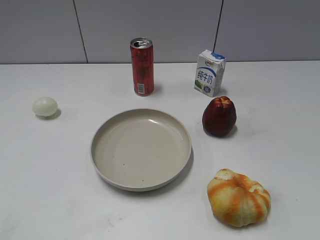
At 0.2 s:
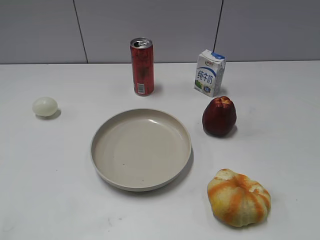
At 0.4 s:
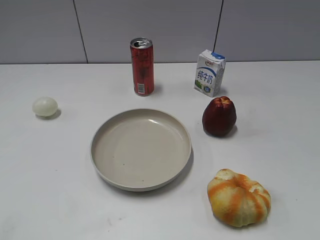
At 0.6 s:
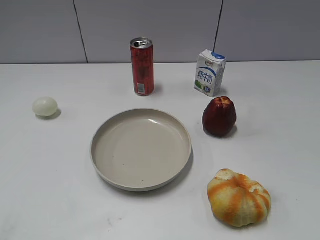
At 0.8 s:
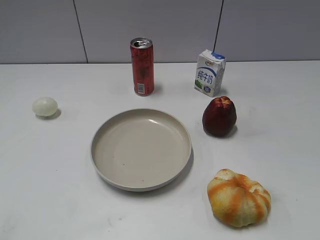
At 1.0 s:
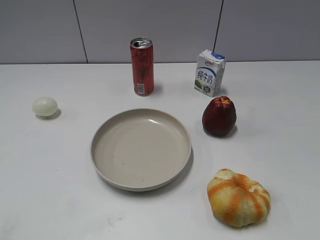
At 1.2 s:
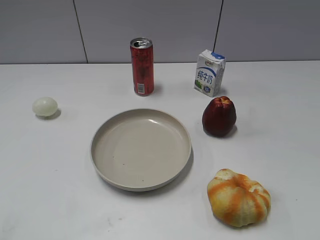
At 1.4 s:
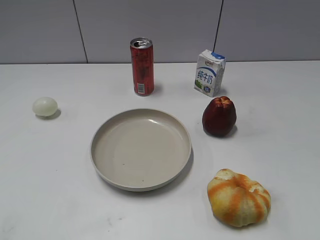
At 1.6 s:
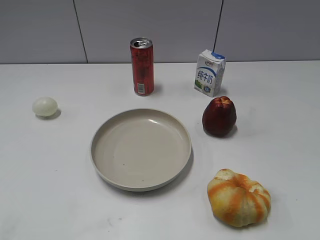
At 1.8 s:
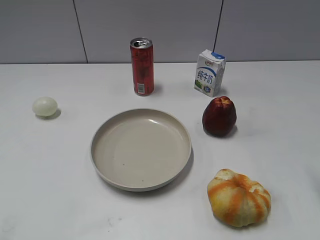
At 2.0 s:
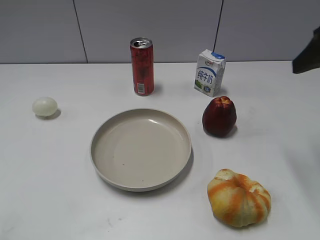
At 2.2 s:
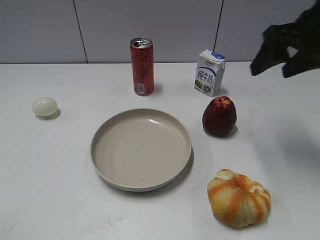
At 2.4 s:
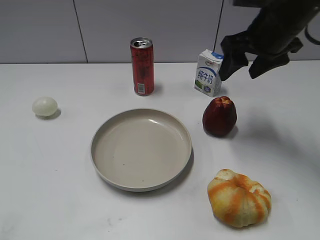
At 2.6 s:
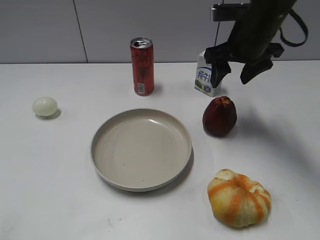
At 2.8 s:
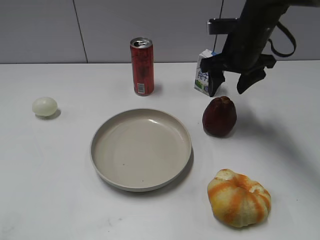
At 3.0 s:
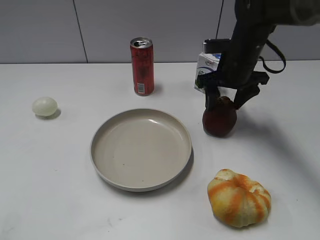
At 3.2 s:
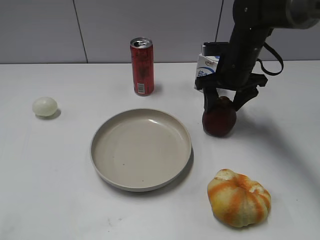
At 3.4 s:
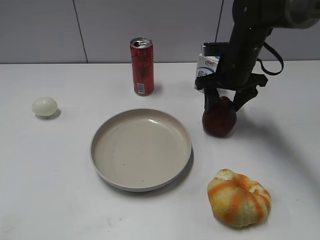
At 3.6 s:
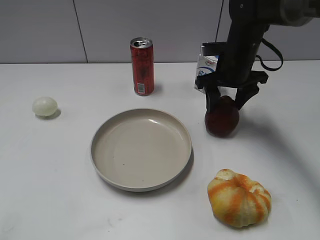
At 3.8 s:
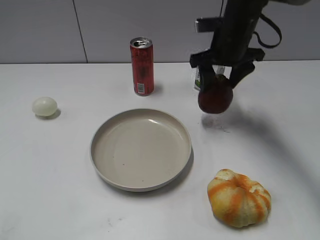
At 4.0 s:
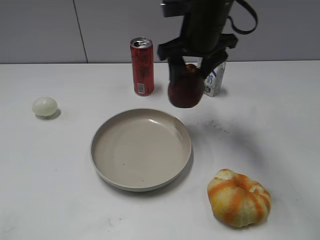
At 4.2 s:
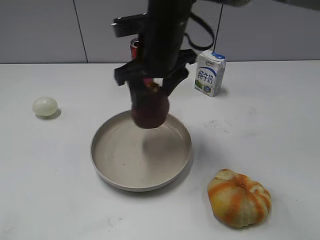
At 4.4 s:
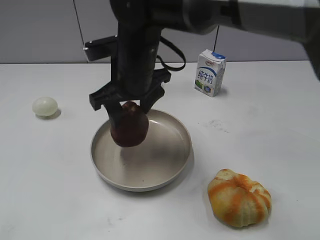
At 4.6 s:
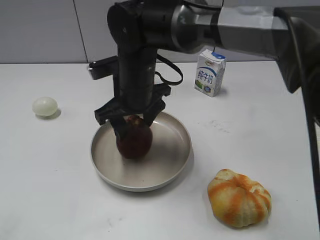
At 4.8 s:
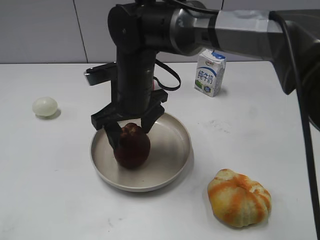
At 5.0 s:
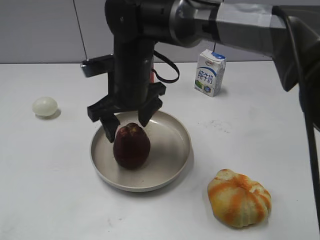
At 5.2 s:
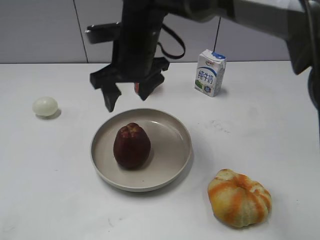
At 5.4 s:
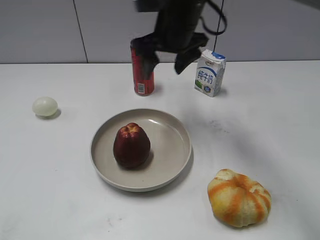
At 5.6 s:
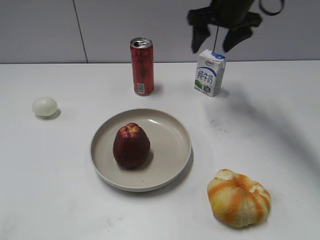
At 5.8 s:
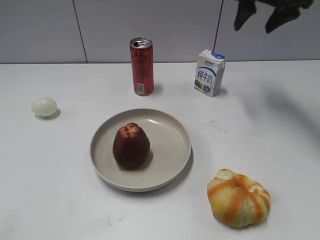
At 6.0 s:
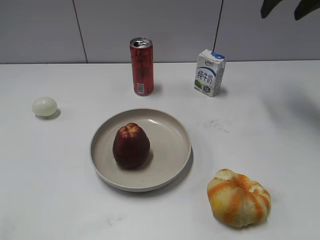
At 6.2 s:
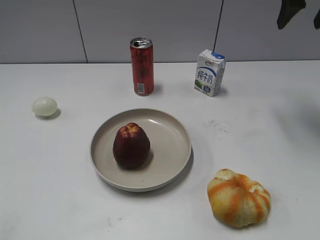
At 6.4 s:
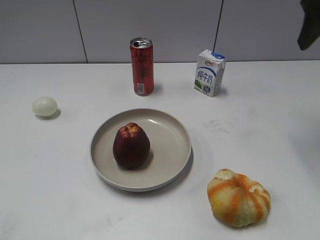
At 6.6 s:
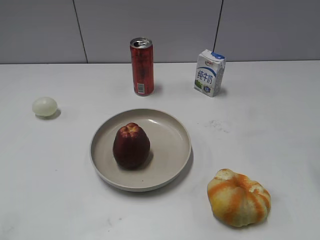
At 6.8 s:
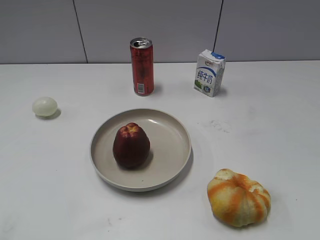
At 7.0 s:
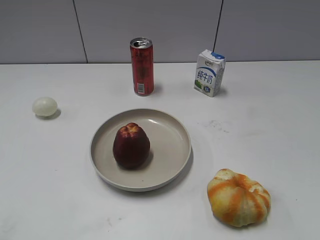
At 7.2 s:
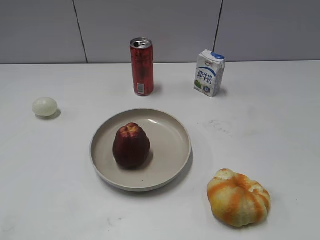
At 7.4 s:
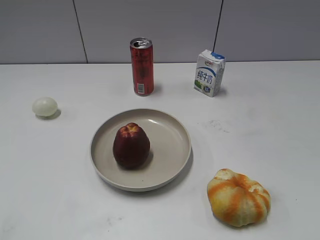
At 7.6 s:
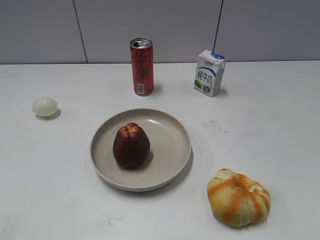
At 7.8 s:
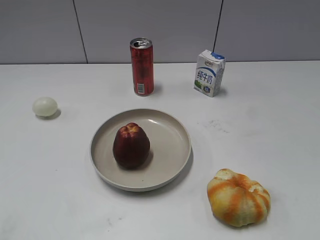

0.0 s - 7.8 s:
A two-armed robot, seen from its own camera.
Step, 2.0 s - 3.4 s: Grasp the apple with right gripper.
Step, 3.8 s - 5.0 s: Place the apple on the plate with right gripper.
1.6 s - 3.2 s: The right gripper moves forward, downward and to the left, about 35 cm.
3.2 s - 4.6 s: The right gripper shifts some 20 cm to the left and backward.
4.6 s - 6.2 s: The right gripper shifts about 35 cm to the right and upward.
6.2 s - 7.8 s: The right gripper heads backward, covering approximately 40 cm.

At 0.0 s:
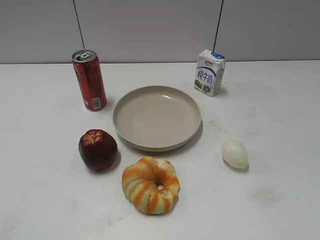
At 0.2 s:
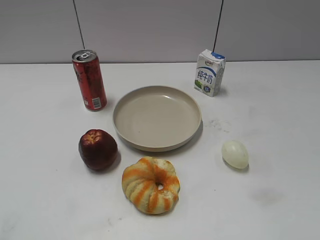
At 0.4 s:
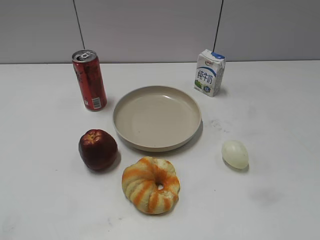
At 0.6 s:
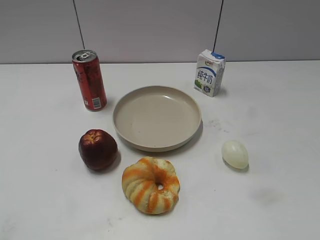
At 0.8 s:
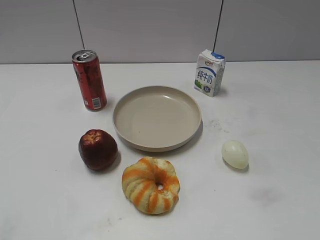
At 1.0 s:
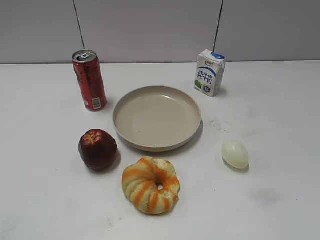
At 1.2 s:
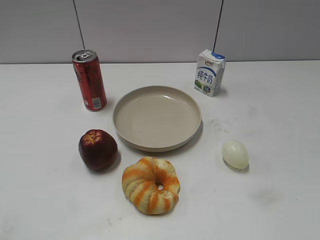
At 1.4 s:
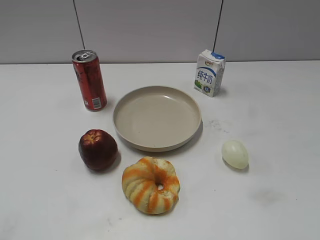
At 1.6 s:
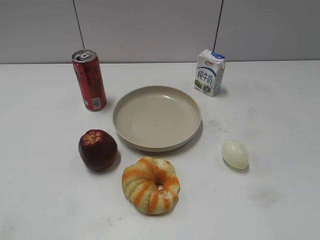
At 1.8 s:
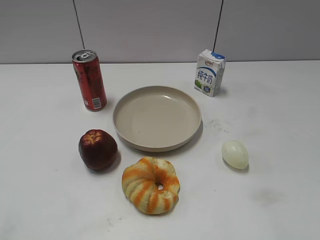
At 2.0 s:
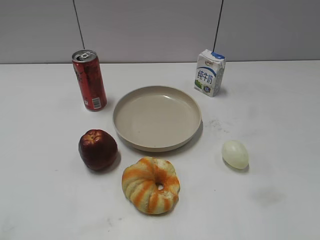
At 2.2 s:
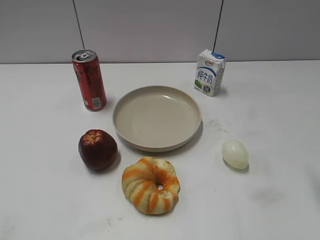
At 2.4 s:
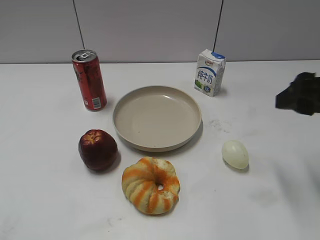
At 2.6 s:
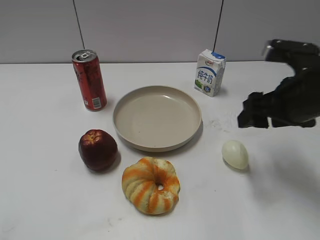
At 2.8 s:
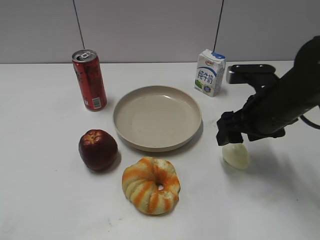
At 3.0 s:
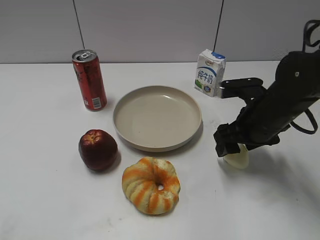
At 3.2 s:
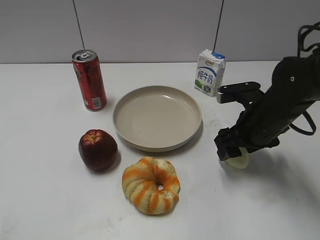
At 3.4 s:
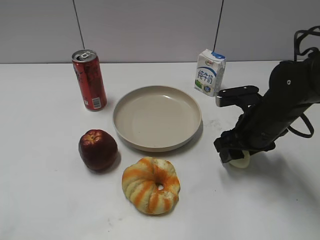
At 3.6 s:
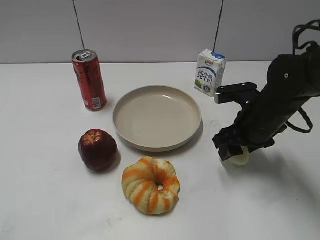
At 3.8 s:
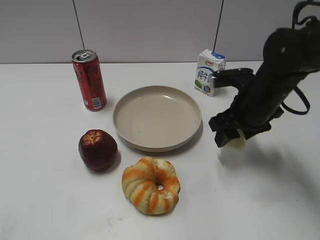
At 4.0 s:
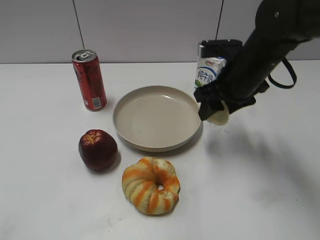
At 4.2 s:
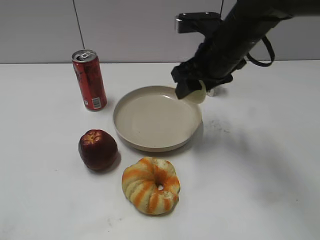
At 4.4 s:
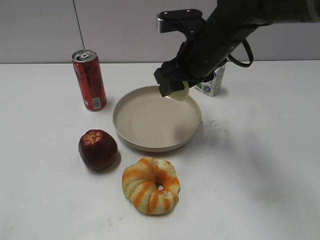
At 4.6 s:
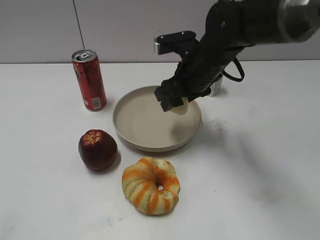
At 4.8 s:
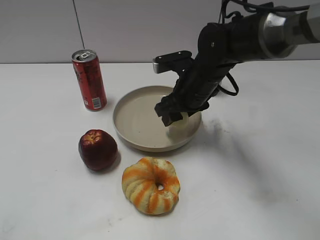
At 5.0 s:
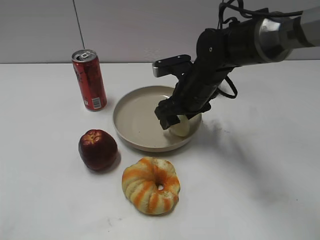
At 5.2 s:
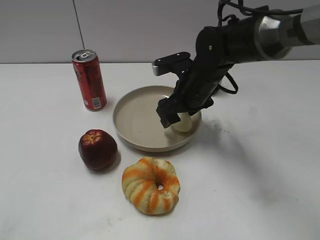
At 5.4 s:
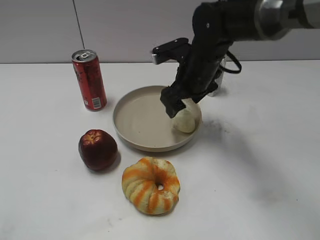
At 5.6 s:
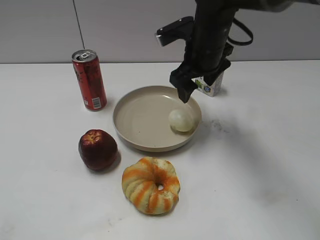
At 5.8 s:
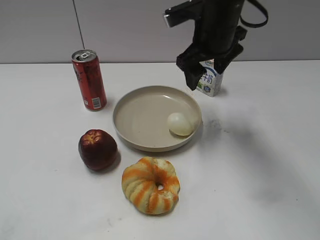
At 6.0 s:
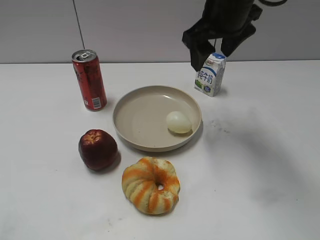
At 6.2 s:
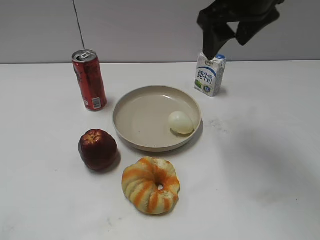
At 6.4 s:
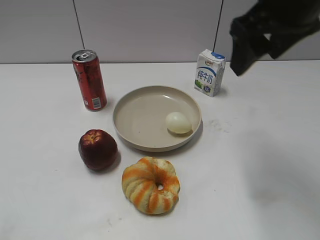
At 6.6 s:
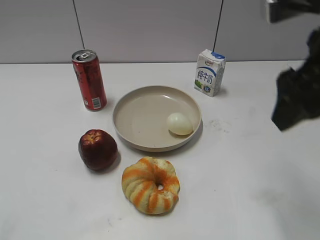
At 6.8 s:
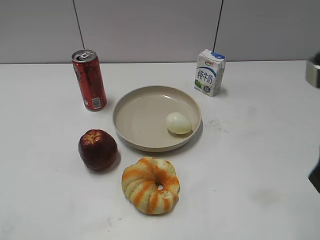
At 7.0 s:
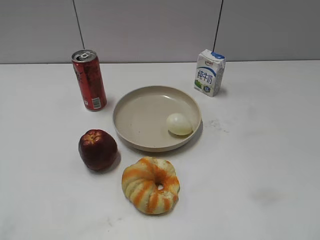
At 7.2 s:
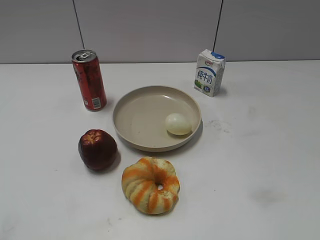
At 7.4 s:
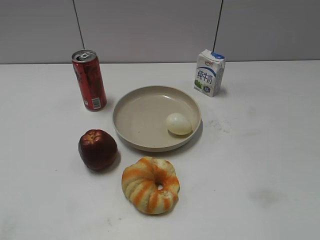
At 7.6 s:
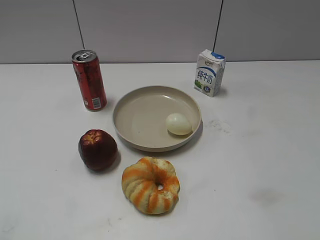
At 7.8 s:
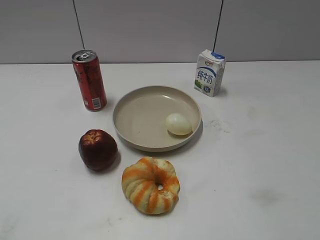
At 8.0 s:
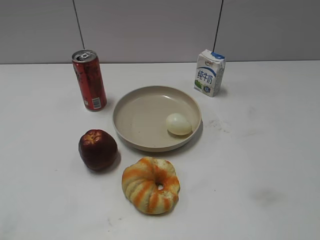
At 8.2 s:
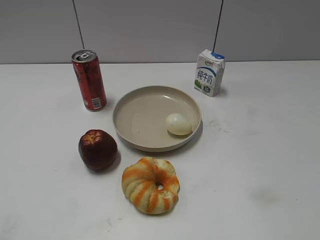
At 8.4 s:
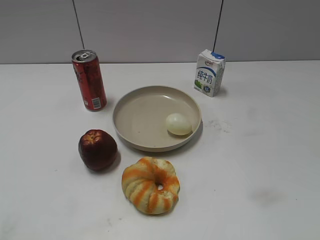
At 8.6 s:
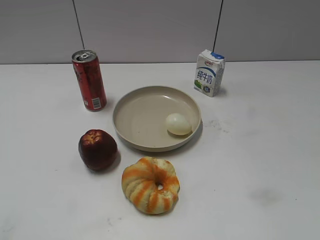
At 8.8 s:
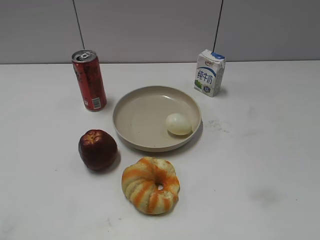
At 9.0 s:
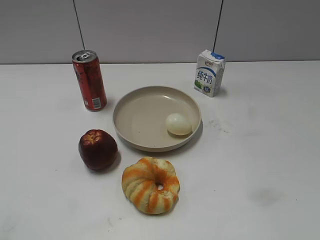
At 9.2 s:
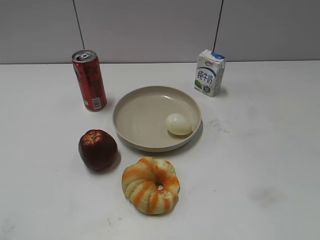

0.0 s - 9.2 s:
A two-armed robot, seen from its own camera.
Step, 1.2 s - 3.4 s: Grasp the egg with right gripper.
Step, 3.8 s - 5.4 s: Place the egg on the plate with right gripper.
1.6 s - 3.0 s: The right gripper goes roughly 35 cm forward and downward.
3.0 s - 4.6 s: The right gripper heads to the left, forward and upward, covering roughly 15 cm, and closes.
4.6 s - 6.2 s: The right gripper travels upward by about 10 cm, and opens.
6.2 s - 7.6 s: The right gripper moves backward and to the right, some 35 cm.

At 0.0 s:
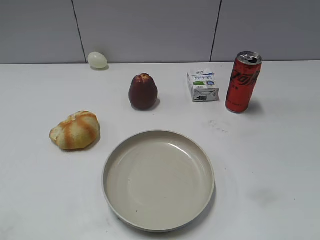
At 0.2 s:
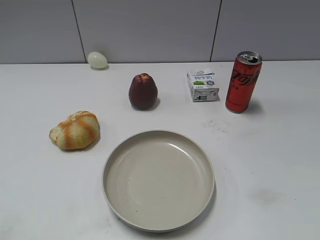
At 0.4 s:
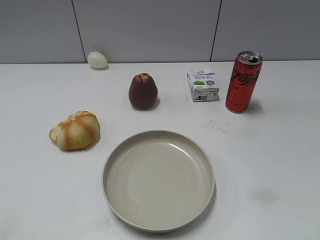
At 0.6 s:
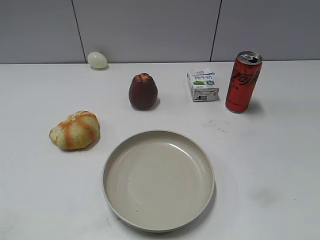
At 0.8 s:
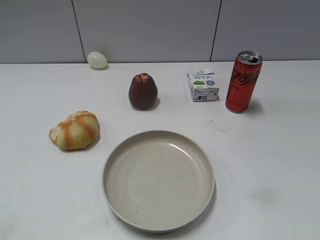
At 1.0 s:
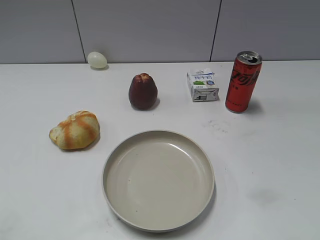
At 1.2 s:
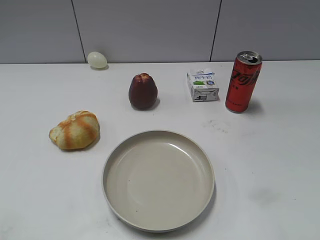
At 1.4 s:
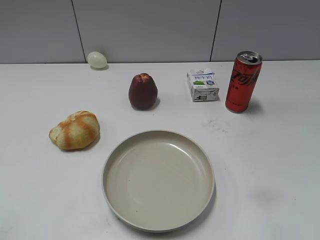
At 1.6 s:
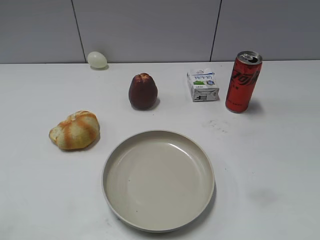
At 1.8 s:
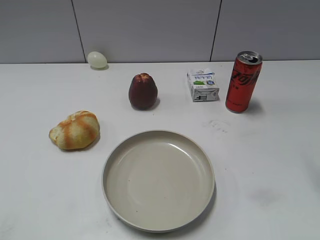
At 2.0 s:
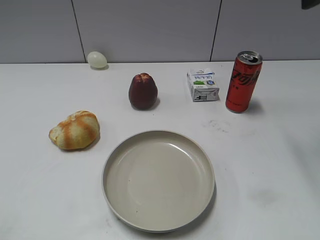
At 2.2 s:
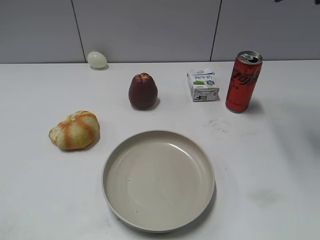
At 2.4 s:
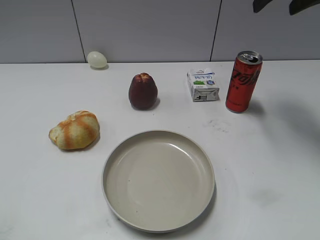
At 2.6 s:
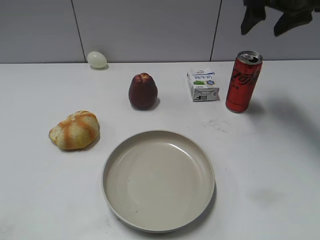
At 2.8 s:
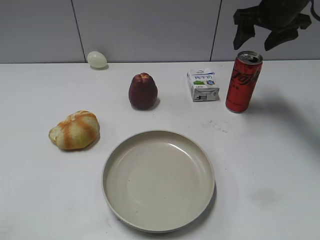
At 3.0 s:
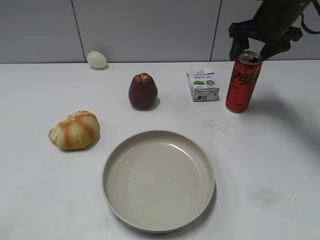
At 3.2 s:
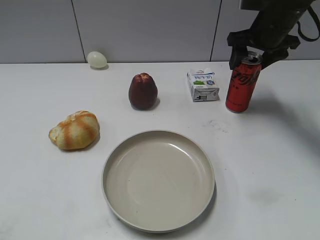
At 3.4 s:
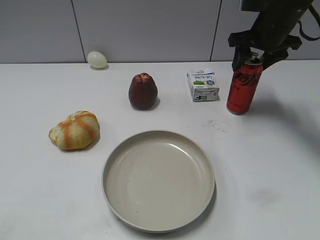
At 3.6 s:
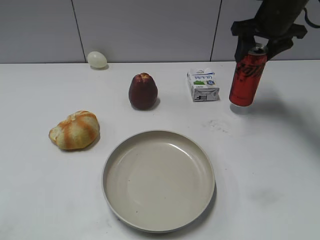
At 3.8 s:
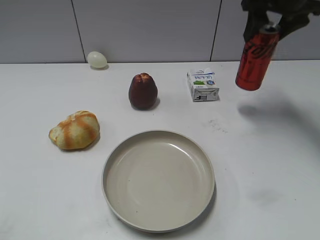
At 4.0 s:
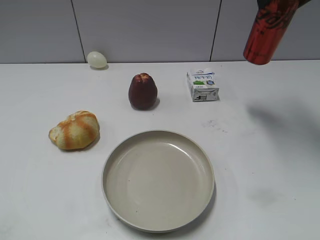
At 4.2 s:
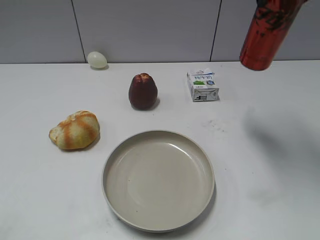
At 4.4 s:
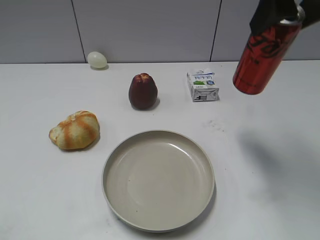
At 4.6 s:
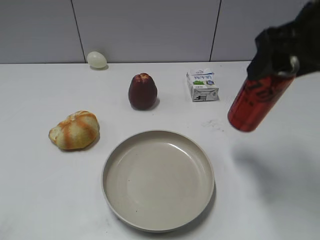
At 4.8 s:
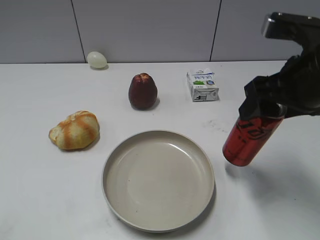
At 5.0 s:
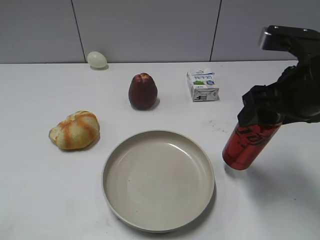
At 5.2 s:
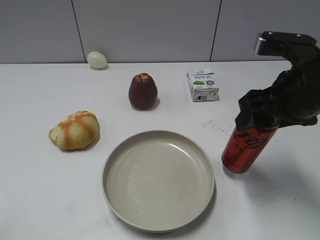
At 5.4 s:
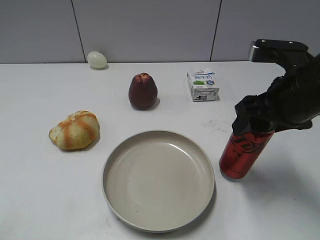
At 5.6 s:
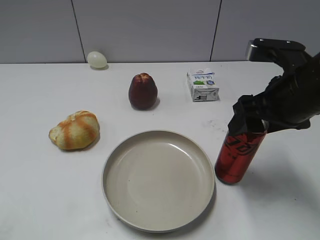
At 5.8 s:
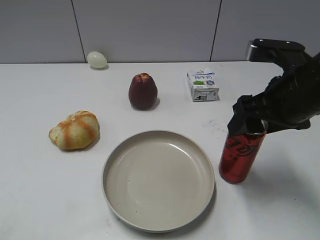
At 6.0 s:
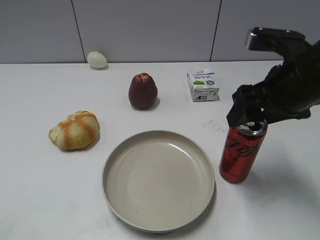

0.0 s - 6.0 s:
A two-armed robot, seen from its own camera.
Step, 1.0 s - 3.2 s: Grasp the cola with right gripper.
1.6 s - 3.0 s: The right gripper moves forward and downward, roughly 35 cm.
3.0 s - 4.4 s: The right gripper is displaced backward and upward by roughly 20 cm, and closes.
4.4 s - 6.0 s: The right gripper heads downward, covering about 10 cm, and opens its fingers.
